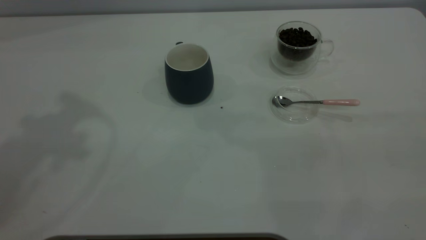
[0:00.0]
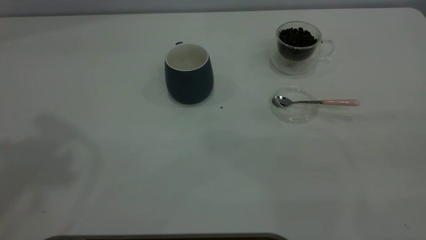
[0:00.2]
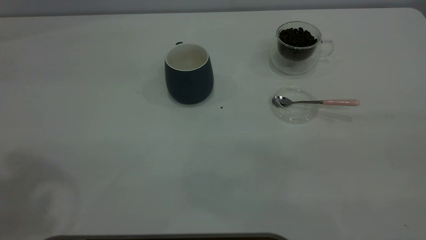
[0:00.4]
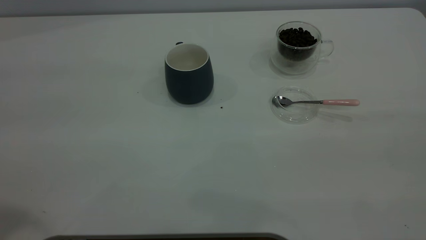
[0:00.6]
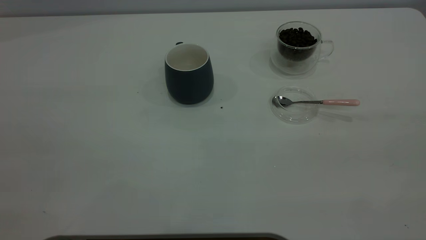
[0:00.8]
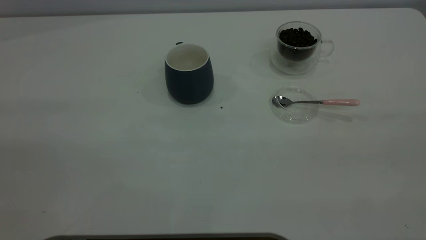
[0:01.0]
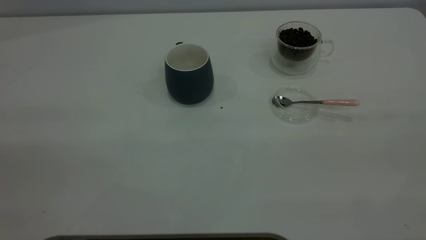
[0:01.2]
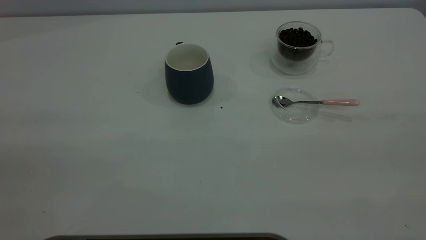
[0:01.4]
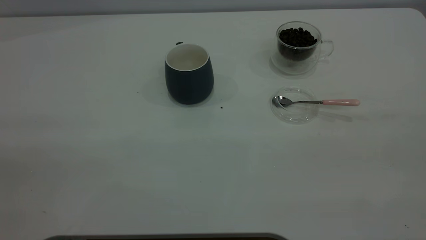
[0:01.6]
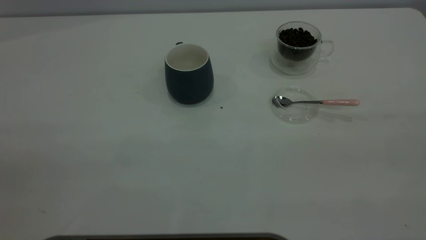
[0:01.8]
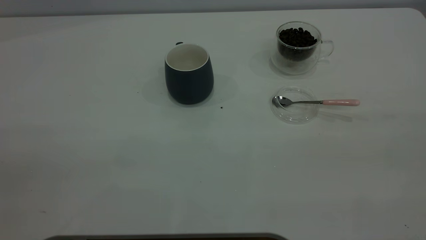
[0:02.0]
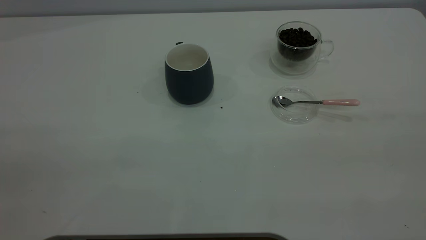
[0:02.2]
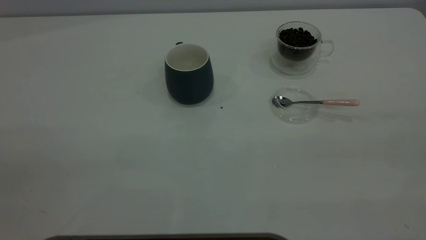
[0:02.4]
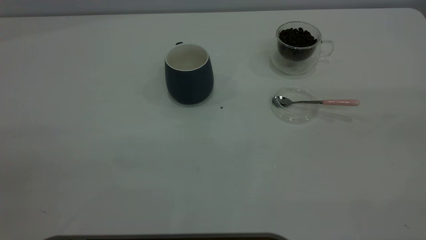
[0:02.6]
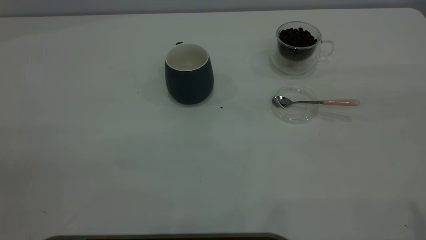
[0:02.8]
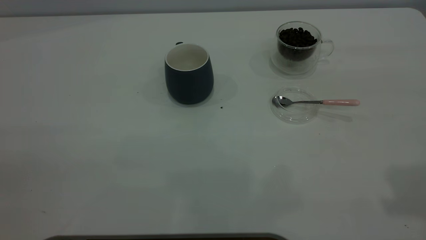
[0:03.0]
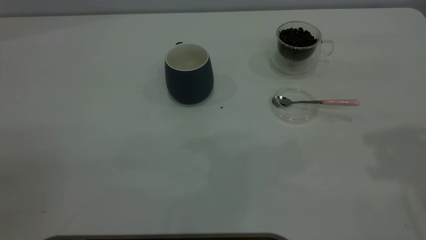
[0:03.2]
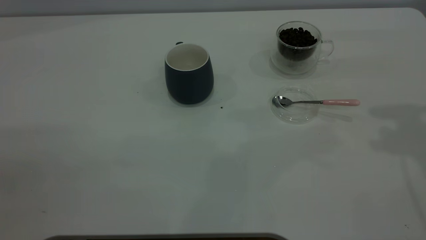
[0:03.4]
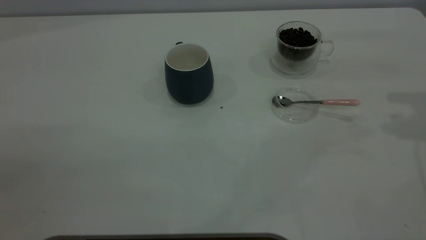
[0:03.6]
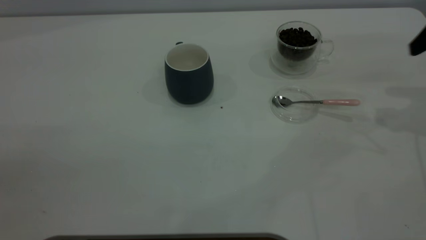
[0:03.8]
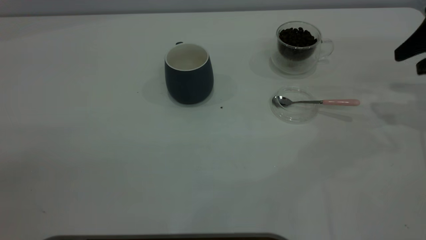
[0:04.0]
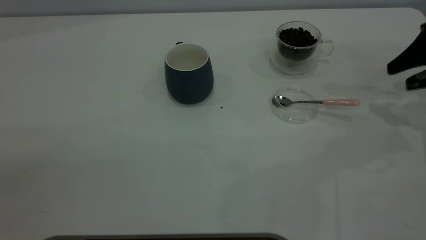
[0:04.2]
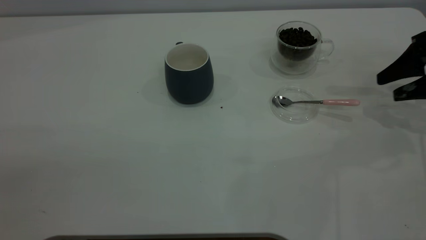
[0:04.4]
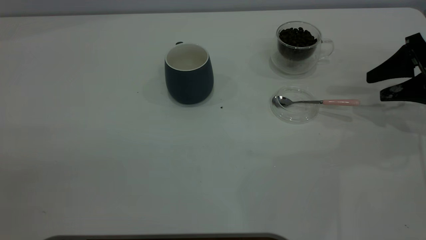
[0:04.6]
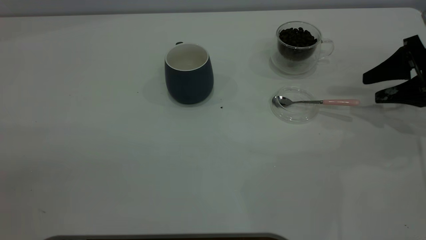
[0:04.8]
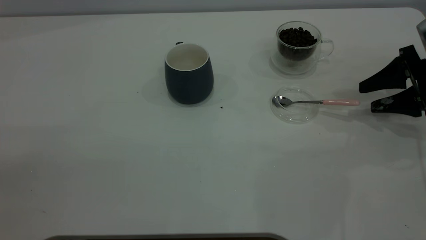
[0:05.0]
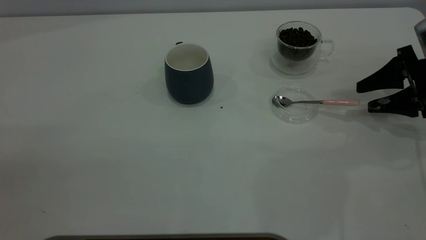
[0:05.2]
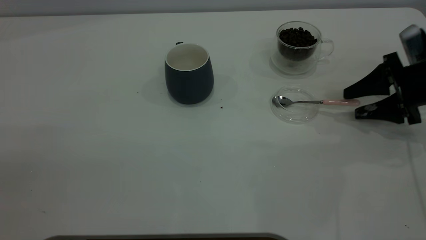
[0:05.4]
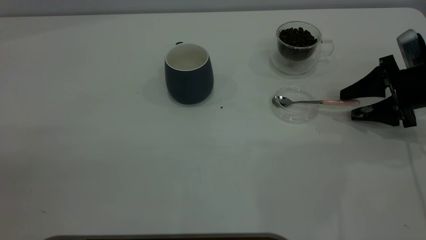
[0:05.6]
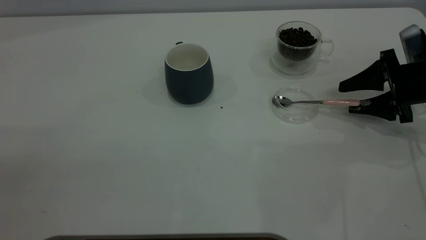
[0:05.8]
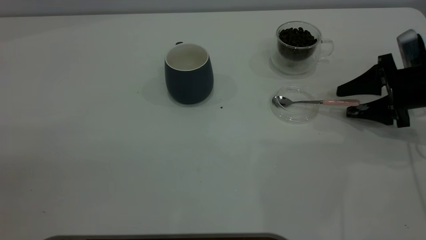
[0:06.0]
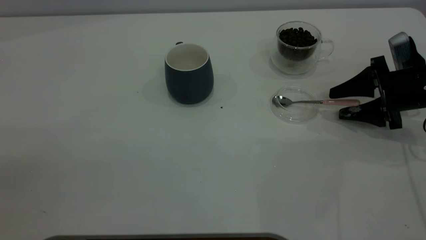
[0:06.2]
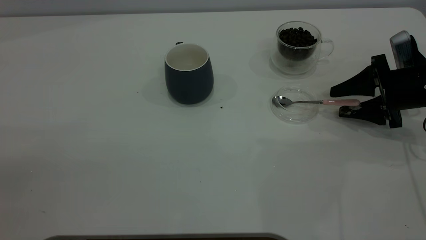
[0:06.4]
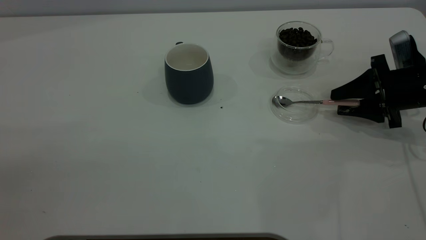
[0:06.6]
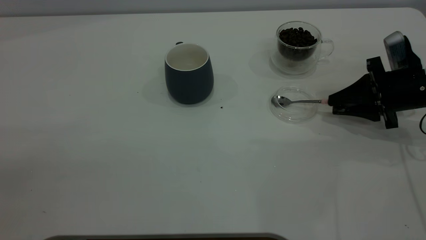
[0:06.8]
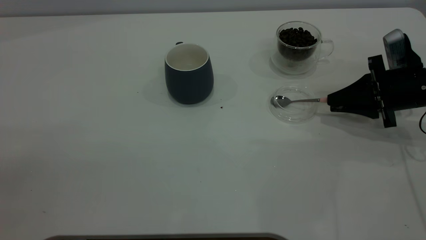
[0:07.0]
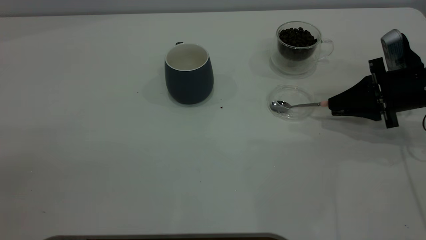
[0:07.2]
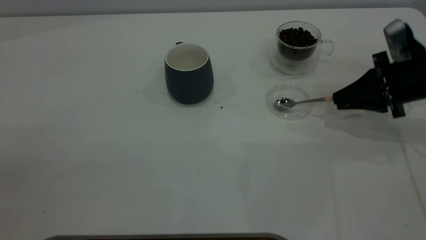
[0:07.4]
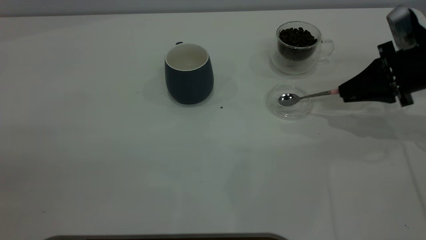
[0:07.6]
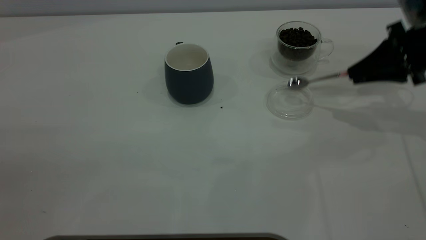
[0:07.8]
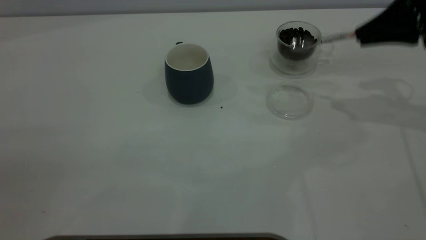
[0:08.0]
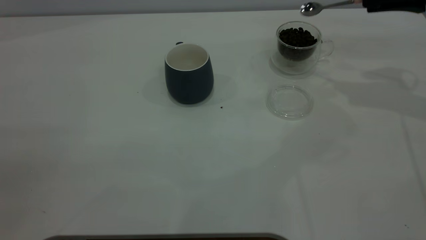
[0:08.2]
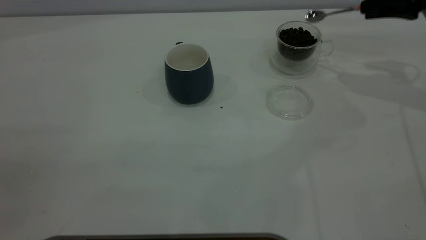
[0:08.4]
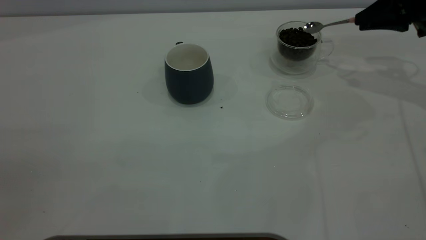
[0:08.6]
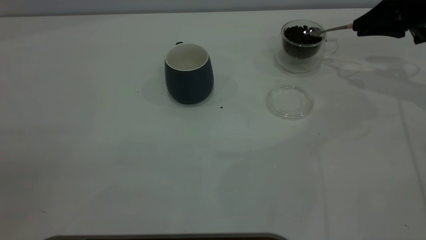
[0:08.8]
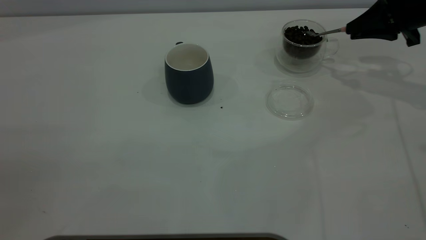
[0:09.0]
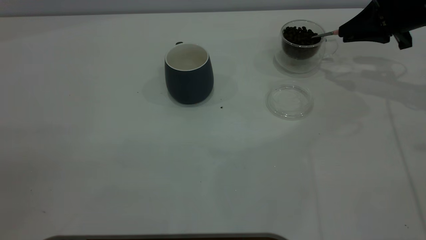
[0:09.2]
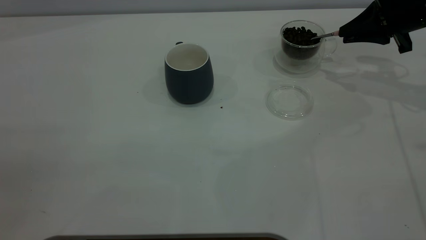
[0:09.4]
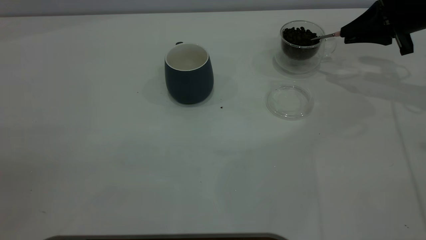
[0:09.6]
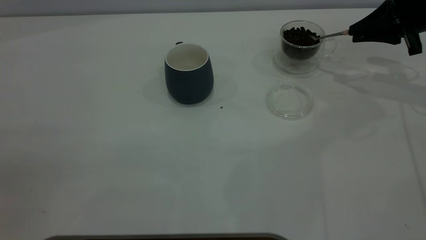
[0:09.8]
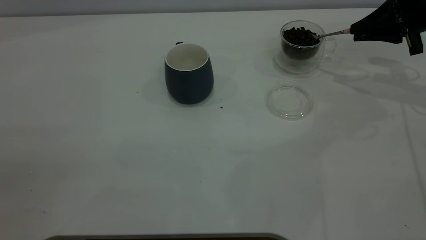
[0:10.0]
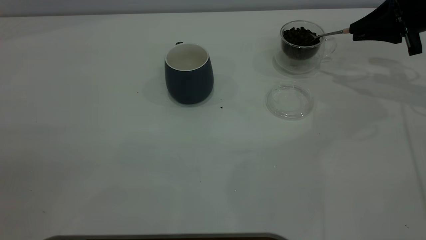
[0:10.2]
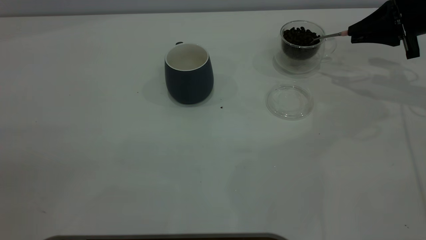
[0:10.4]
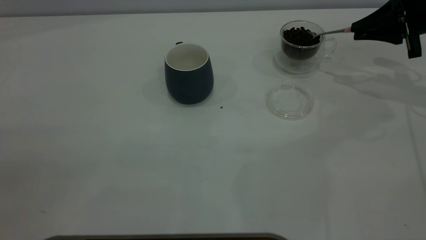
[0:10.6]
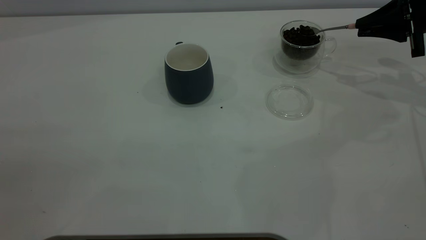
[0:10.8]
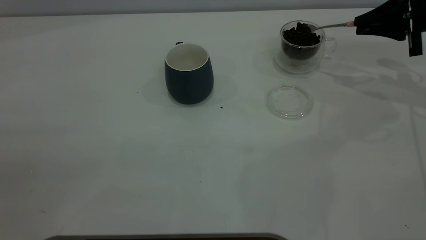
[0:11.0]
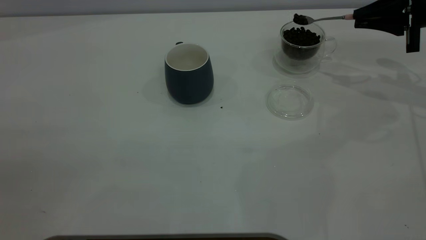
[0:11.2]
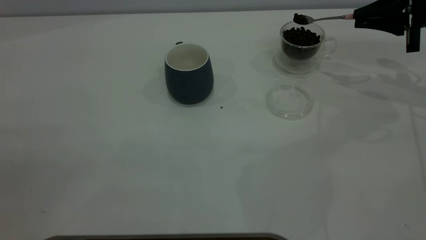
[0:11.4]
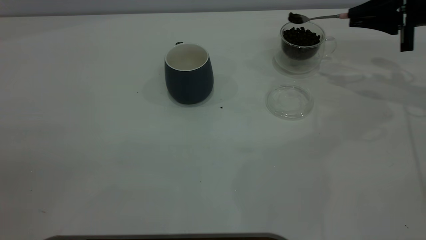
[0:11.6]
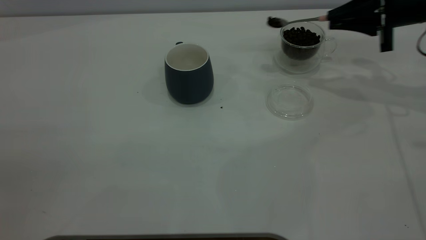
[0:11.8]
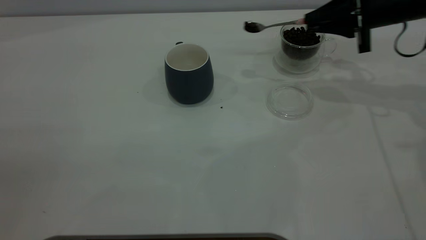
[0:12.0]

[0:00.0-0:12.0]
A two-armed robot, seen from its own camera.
Task of the whole recording: the left gripper place the grey cup in the center of the table, the right gripper take the pink spoon from the cup lid and scoop out the coffee beans from the coffee cup and put them into the grey cup, the right gripper put the spoon back into the cup lid.
Step, 0:00.0 to 0:07.6: Pick up the spoon.
0:03.0 to 0:04.4: The right gripper travels downward and forward by some 30 cm.
0:04.4 to 0:06.0: The right gripper heads downward, covering about 5 cm.
0:06.0 to 0:07.6: The right gripper goes approximately 5 cm upward, and closes up.
0:07.6 to 0:09.0: The right gripper travels forward by about 10 cm.
0:09.0 to 0:10.4: The grippers stay close to where they were, moving slightly.
0:10.4 to 0:12.0: The right gripper is displaced to the left by about 10 cm.

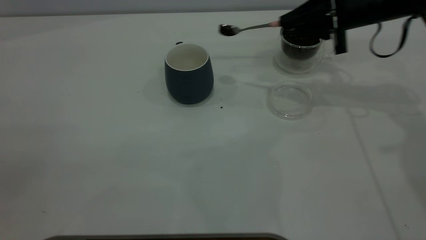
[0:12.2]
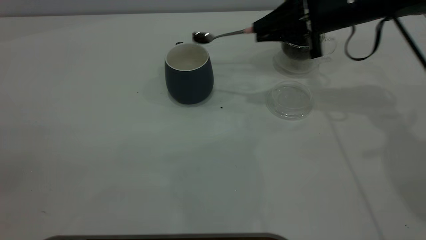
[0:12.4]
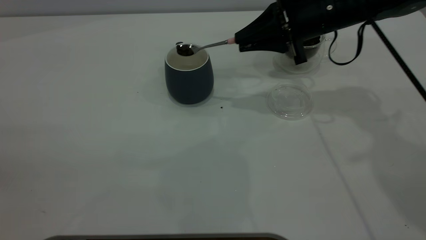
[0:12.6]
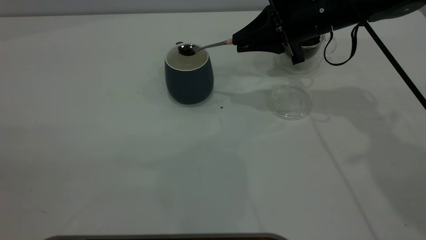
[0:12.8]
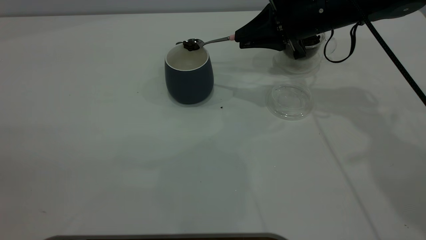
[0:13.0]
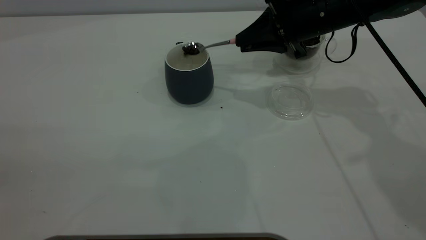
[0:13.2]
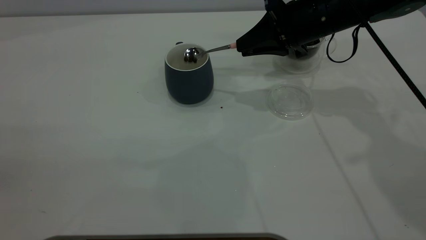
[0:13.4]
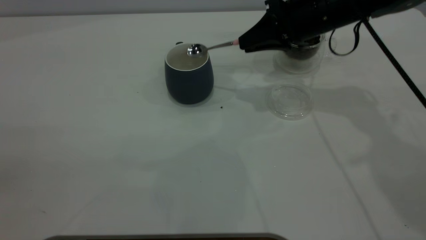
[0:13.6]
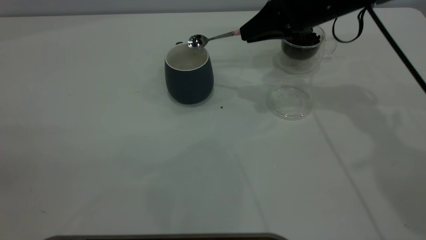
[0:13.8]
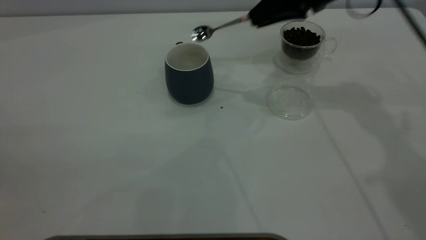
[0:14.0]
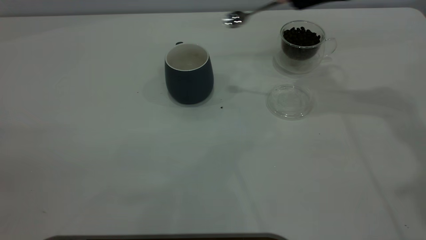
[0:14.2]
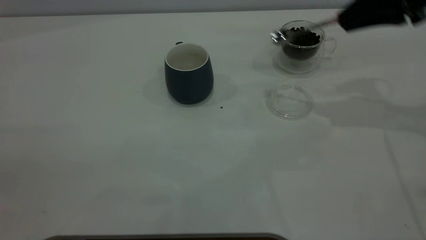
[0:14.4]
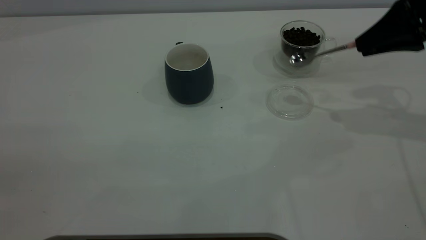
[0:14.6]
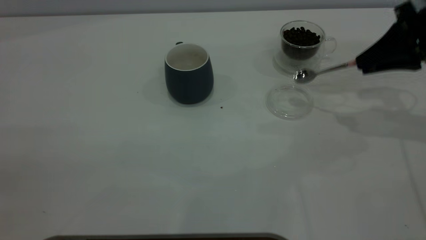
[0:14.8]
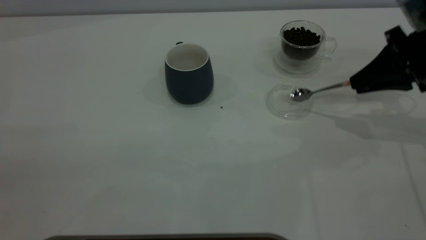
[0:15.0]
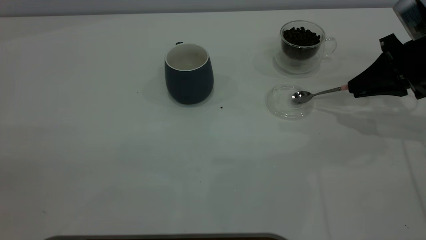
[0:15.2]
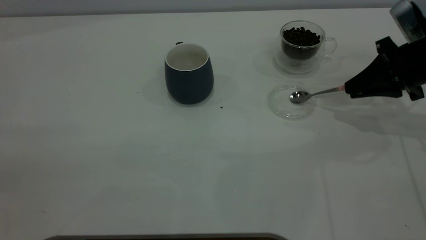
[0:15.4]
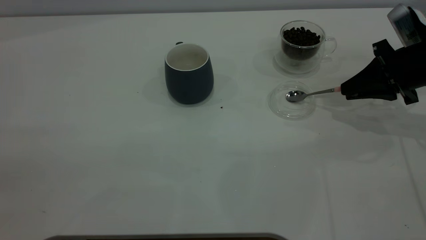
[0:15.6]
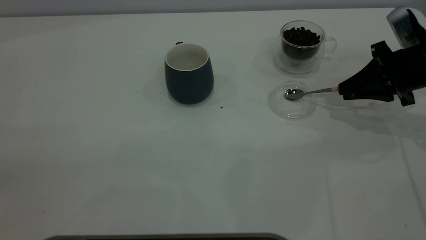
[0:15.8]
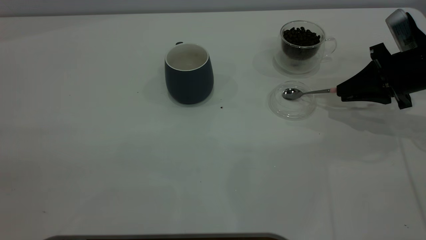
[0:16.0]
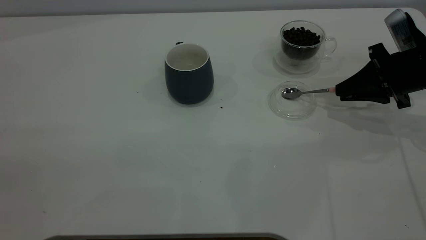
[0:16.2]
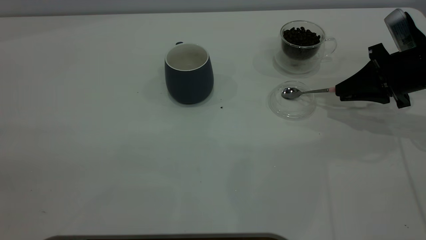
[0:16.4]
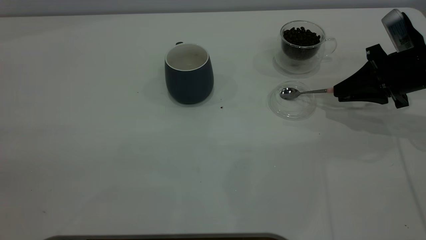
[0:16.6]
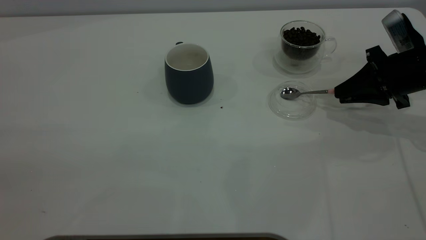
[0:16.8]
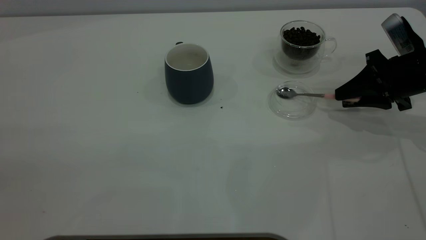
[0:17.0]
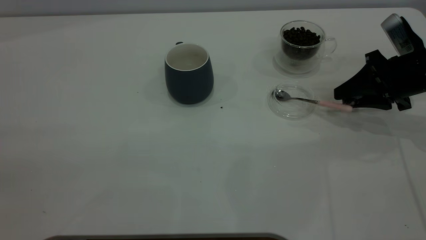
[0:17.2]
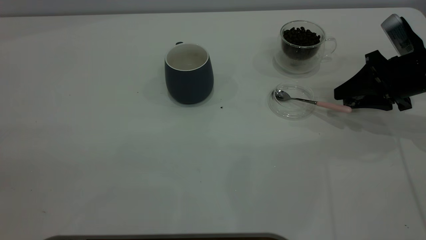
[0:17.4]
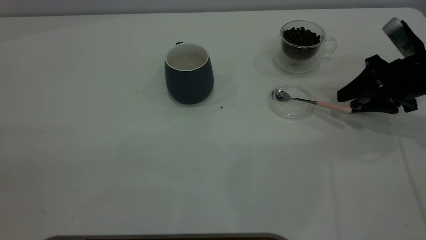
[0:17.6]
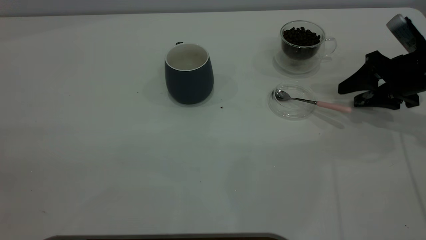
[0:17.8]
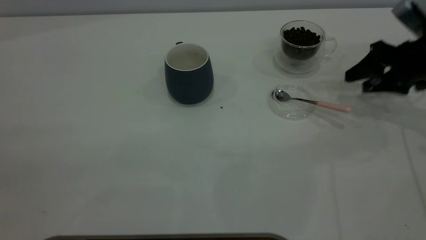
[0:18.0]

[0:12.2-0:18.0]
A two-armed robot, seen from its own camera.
Task of the whole recording: the left gripper place the grey cup in the center of the table, the right gripper take the pink spoon from the cup lid and scoop out the coffee beans from the coffee cup and put them into the grey cup, the right gripper put the spoon back into the cup lid.
Step, 0:14.0 to 0:17.8: Place the spoon back in its original place.
0:12.2 to 0:13.6: The right gripper goes roughly 5 cm to the left.
0:13.6 to 0:15.0: The right gripper shifts approximately 15 cm to the right and backward.
0:15.0 to 0:16.6: The grippers stay close to where they were, moving slightly.
0:16.6 to 0:18.0: The right gripper opens its fingers.
